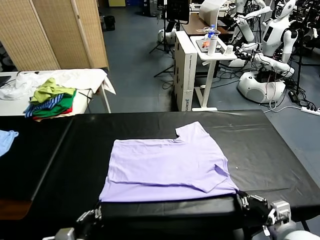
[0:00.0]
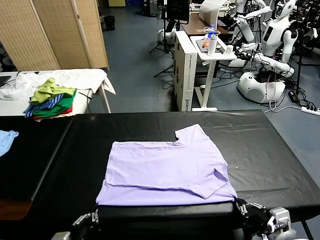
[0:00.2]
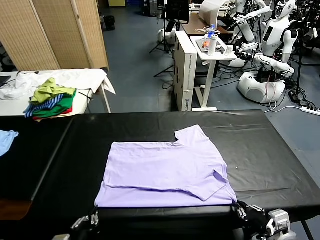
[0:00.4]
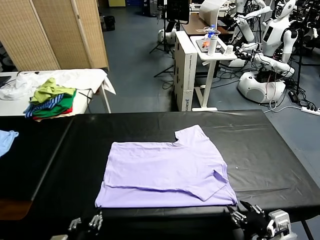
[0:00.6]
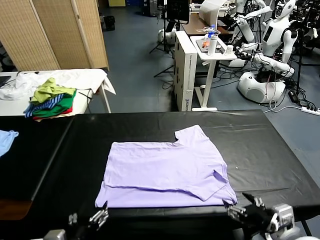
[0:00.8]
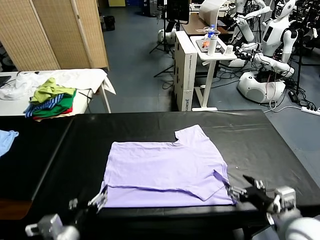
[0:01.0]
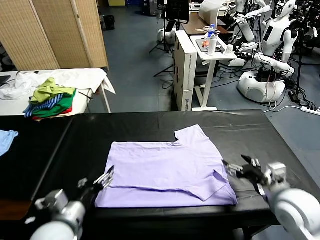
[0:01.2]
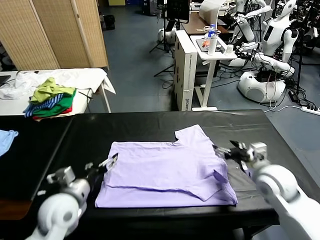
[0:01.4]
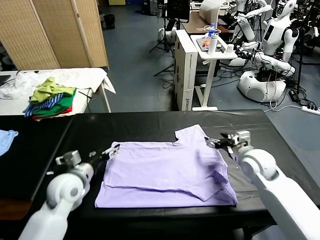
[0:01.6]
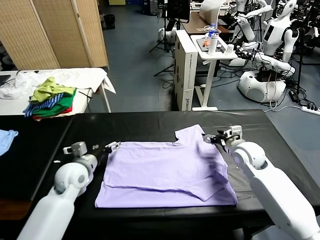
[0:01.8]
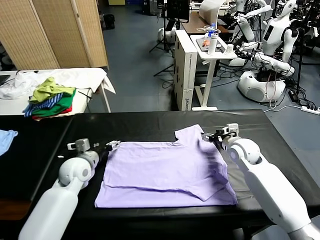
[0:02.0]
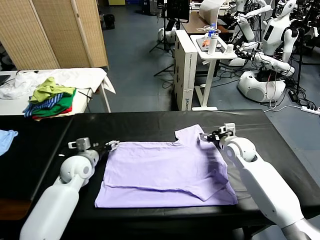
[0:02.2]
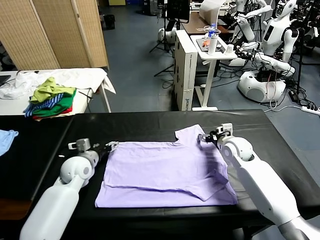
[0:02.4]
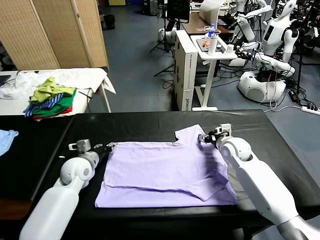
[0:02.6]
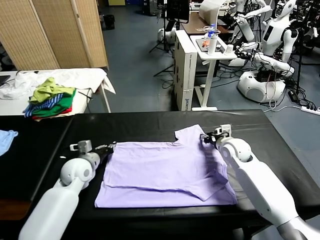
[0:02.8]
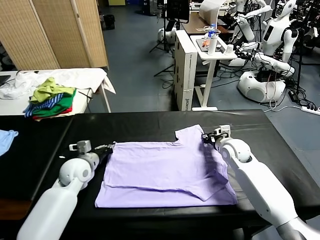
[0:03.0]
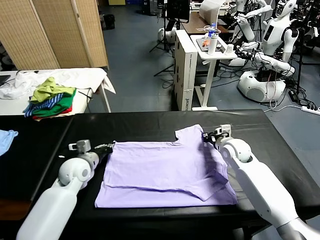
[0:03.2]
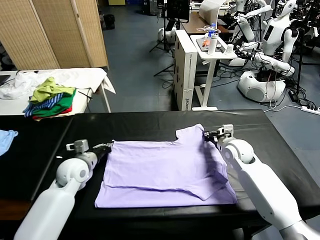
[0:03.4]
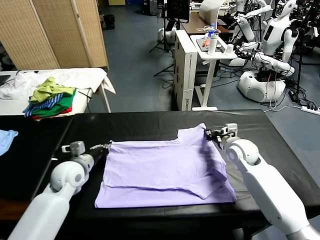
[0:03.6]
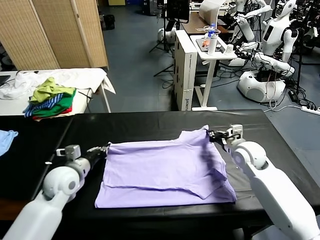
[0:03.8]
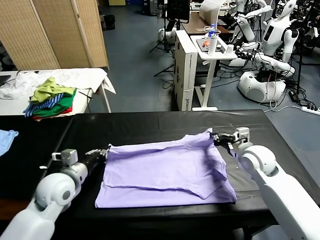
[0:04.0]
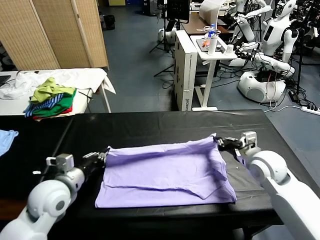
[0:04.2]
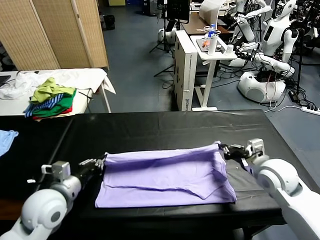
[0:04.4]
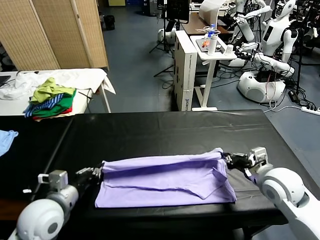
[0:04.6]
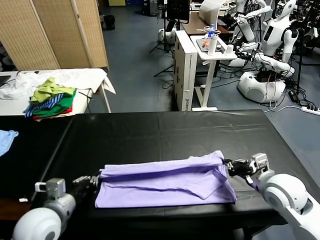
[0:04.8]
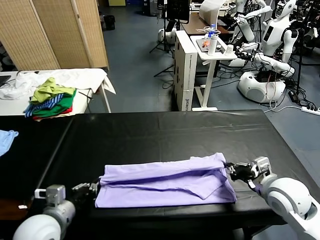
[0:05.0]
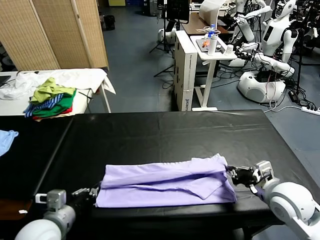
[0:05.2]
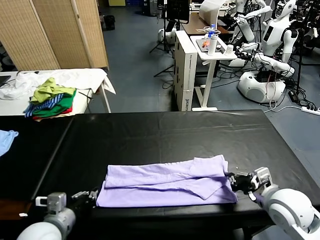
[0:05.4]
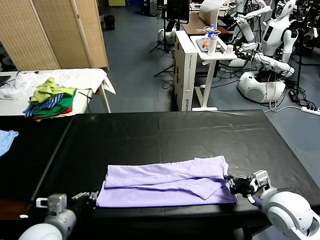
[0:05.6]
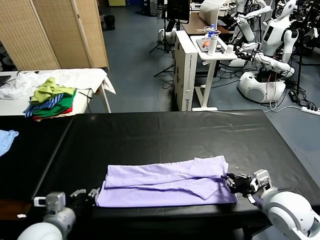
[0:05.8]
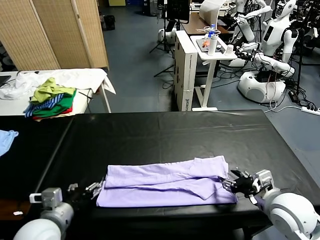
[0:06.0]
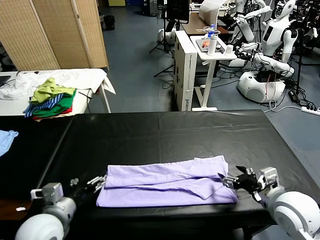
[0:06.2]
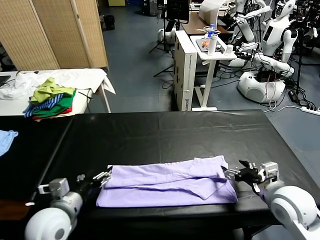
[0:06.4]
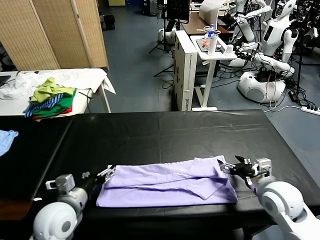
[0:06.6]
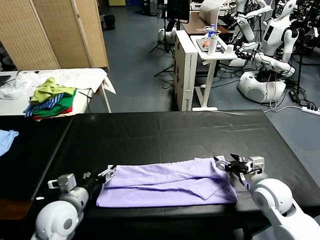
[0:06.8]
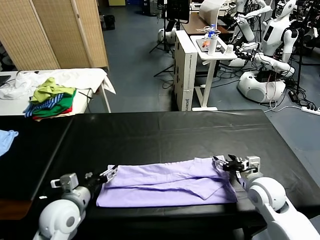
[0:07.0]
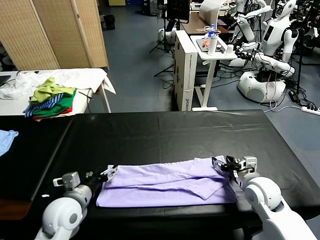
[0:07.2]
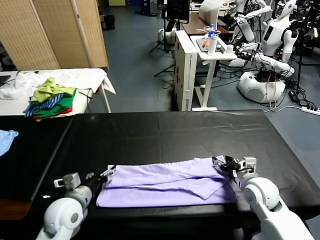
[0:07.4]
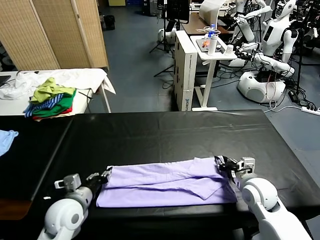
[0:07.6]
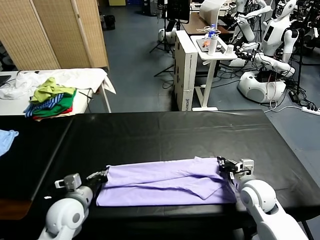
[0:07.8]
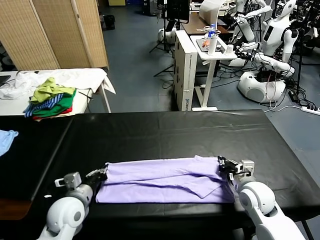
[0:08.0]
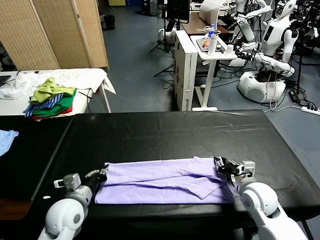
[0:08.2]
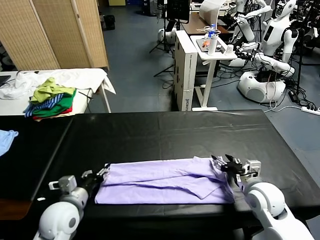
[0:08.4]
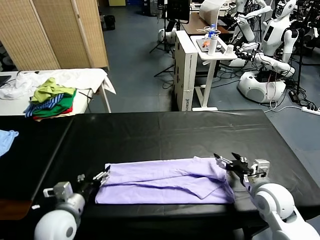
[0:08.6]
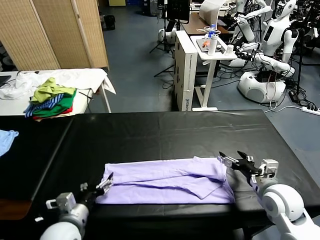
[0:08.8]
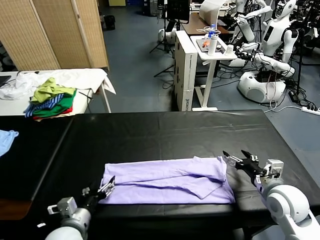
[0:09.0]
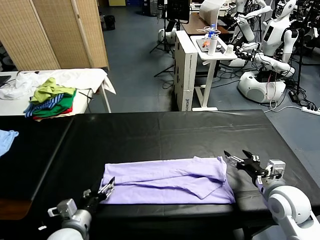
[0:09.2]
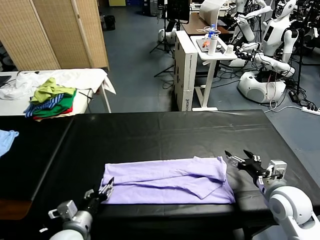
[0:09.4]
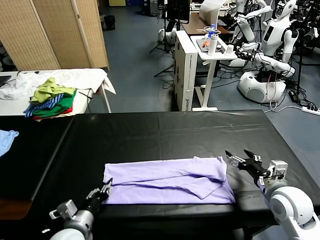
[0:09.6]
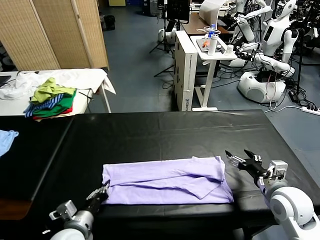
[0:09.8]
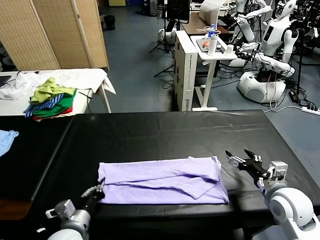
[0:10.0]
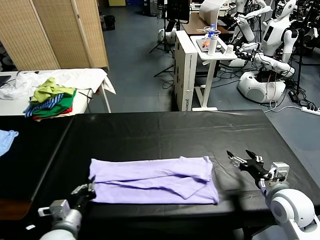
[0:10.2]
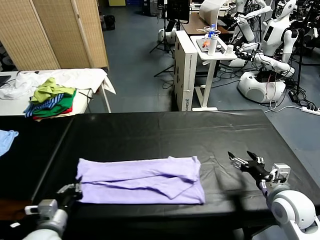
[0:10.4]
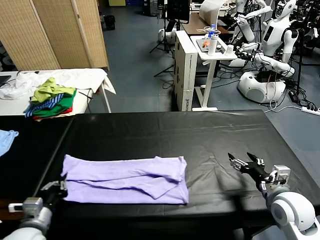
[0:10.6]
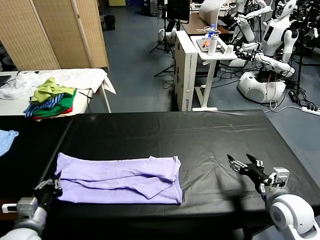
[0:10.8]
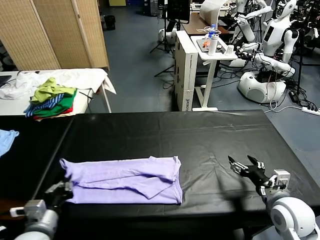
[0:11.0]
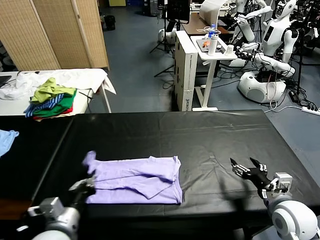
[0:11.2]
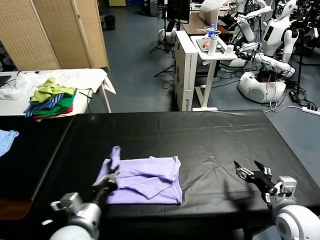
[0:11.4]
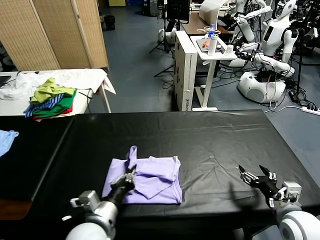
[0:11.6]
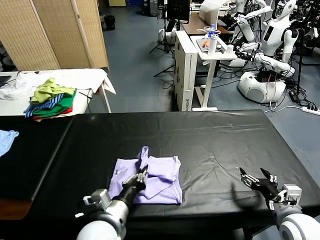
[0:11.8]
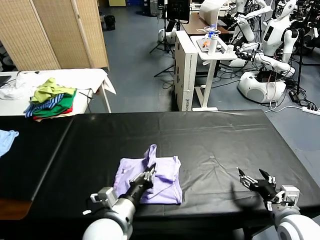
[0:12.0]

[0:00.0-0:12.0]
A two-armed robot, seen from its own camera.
Task of the whole recording: fold and organize the clothes.
Step, 0:00.8 to 0:03.0: use both grippers simultaneously to clamp the upper edge of the clothing fabric.
Step, 0:03.4 to 0:06.0: use both grippers to drag the upper edge of the fabric backward and fold it over the lower edge.
Step, 0:06.4 to 0:09.8: use the left gripper to clamp the left edge of the fabric.
0:00.0 to 0:01.6: Both grippers move forward, approximately 25 cm. The right gripper opens. The left gripper opens.
0:01.6 to 0:03.0: The left gripper moves roughly 5 cm, and closes up. Meanwhile the right gripper changes place by roughly 5 cm, and closes its fingers.
0:03.0 to 0:04.4: The two grippers go about 20 cm backward and upward.
0:04.4 to 0:06.0: The two grippers go roughly 5 cm backward. The right gripper opens. Meanwhile the left gripper opens.
0:06.0 to 0:07.6: The right gripper moves downward and forward, approximately 15 cm, and closes its fingers; the left gripper moves forward and downward, about 10 cm, and closes its fingers.
0:07.6 to 0:09.0: The right gripper goes roughly 5 cm upward, and opens up. The left gripper is displaced backward by approximately 5 cm, and opens up.
0:09.0 to 0:10.4: The left gripper shifts approximately 5 cm to the left, and closes.
0:10.4 to 0:12.0: The right gripper travels backward by approximately 5 cm, while the left gripper moves to the right, roughly 20 cm.

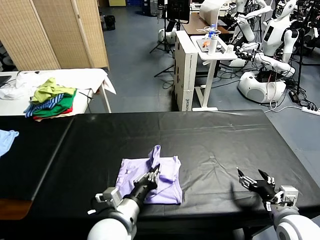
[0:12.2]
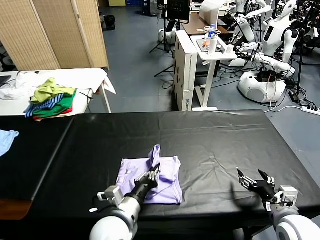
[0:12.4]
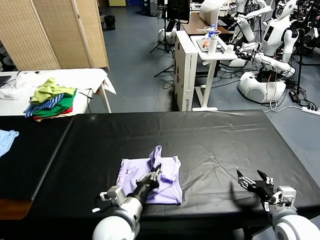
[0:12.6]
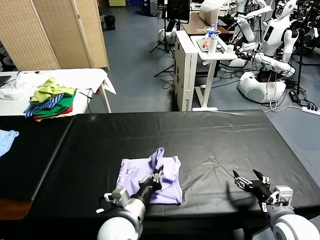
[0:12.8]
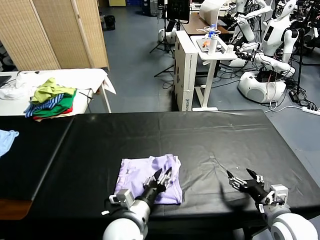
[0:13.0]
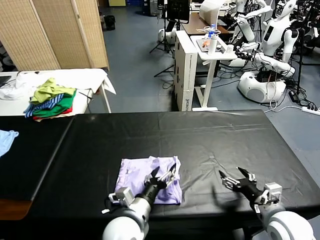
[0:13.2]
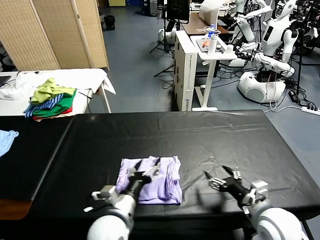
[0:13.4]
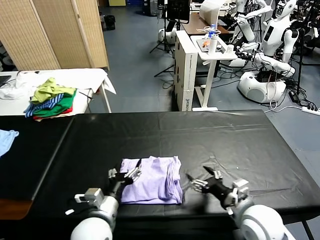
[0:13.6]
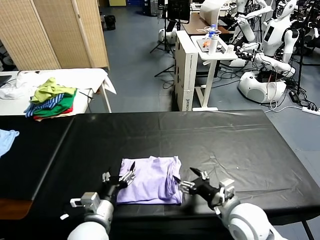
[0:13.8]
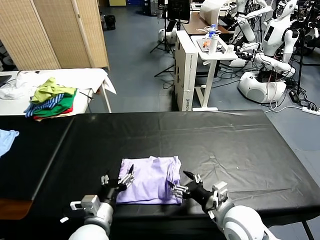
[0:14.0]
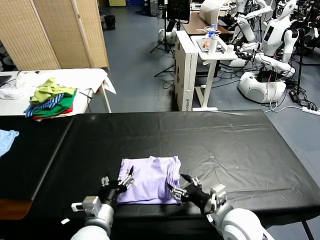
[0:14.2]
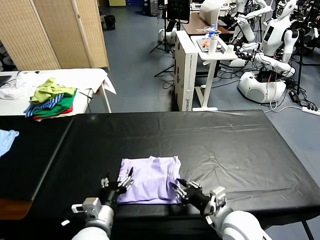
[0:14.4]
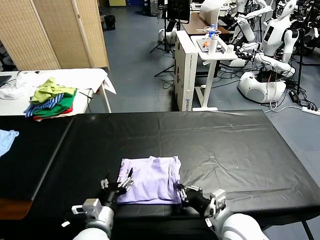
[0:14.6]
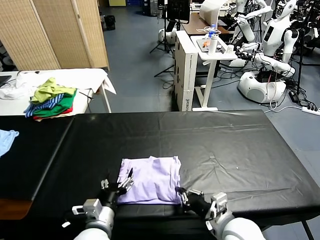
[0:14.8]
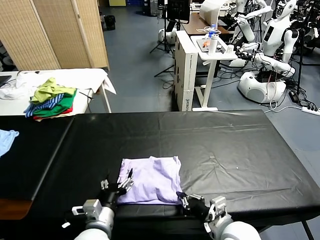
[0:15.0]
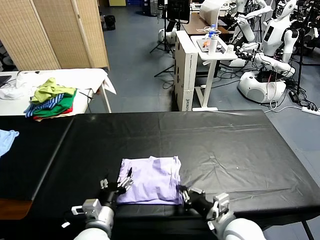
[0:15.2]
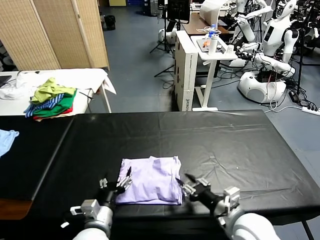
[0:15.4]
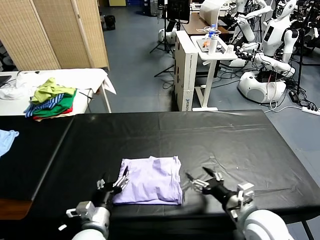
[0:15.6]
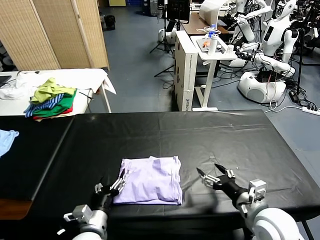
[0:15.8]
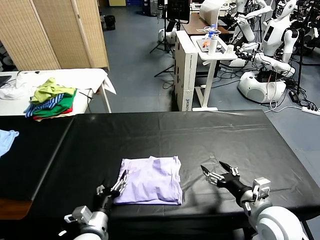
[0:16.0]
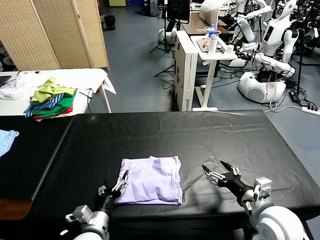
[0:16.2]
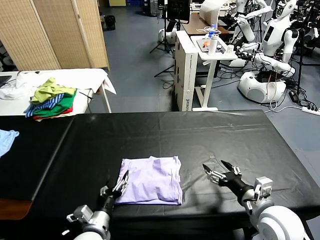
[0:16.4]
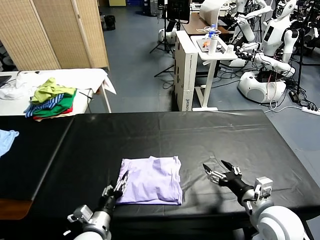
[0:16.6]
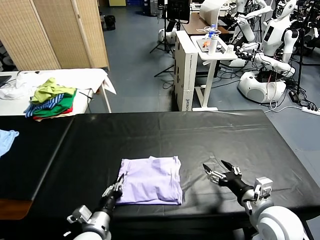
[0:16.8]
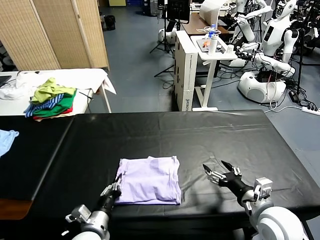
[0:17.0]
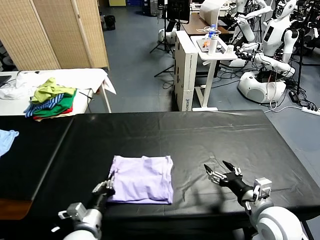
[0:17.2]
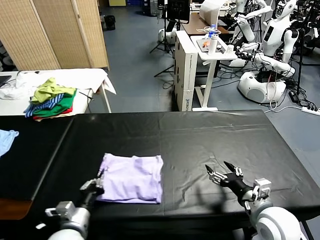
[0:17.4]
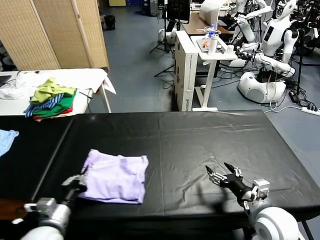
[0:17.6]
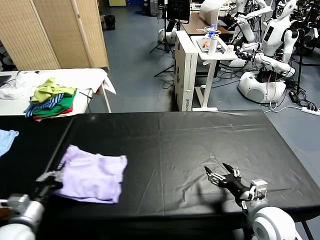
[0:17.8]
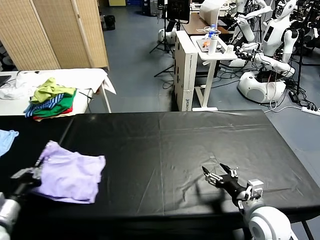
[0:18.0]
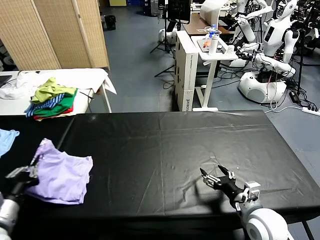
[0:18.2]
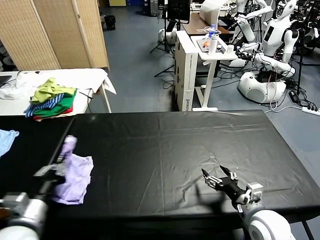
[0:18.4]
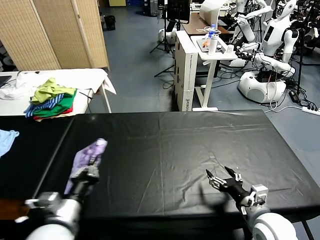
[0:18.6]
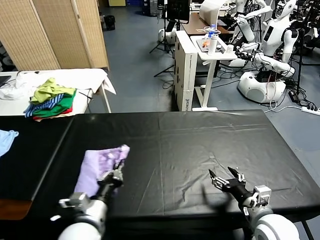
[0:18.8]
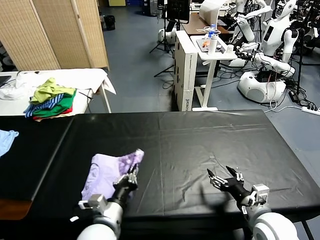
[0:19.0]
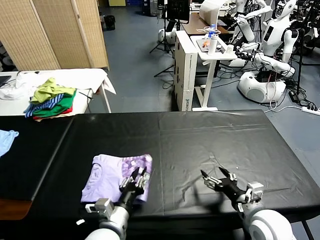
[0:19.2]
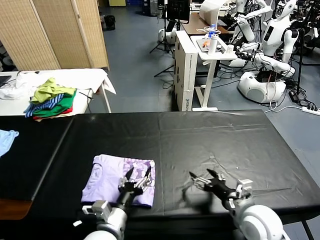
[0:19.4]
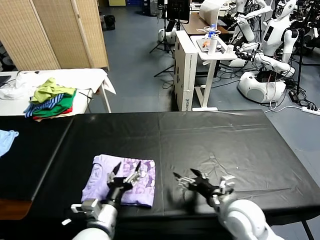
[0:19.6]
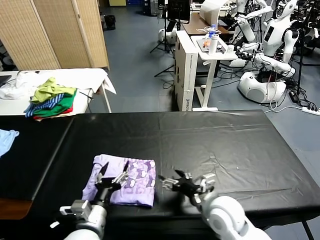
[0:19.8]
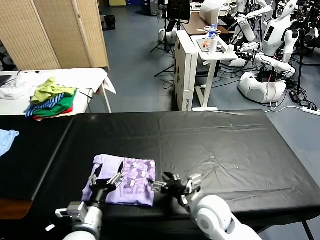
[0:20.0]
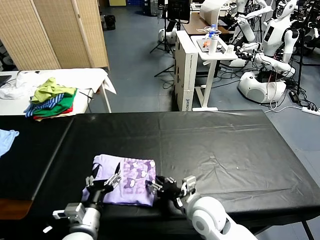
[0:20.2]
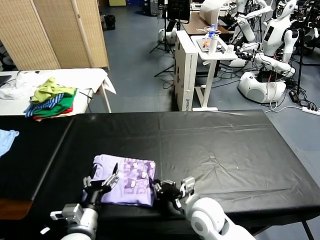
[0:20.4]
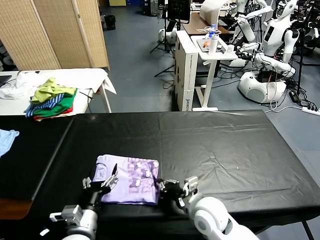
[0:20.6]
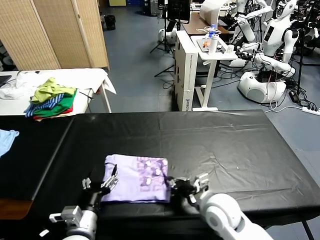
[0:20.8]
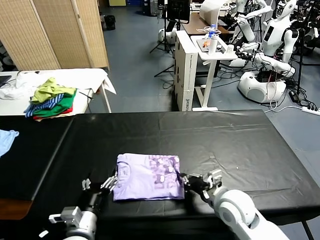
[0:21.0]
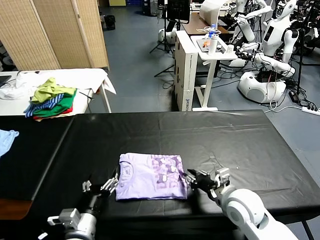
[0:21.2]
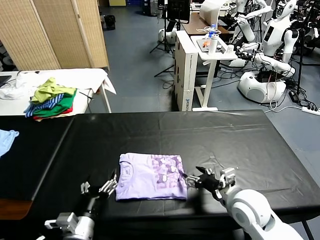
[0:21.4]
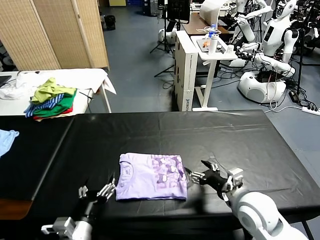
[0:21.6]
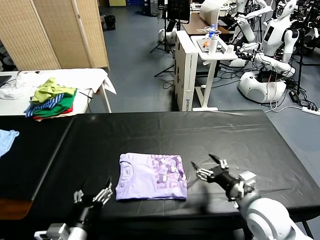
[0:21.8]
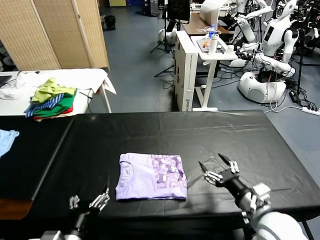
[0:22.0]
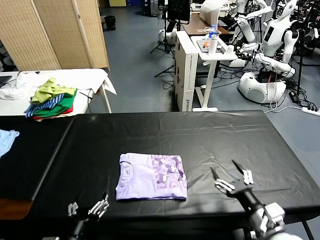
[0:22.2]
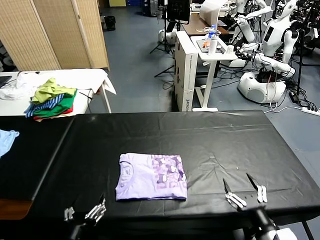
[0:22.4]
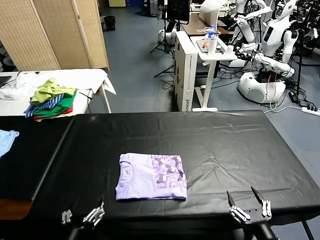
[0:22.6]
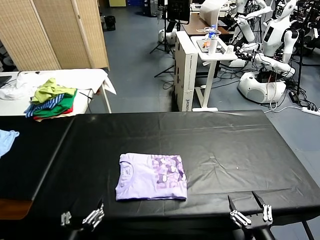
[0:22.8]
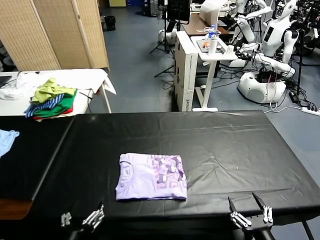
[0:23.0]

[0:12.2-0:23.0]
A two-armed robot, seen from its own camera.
Task of the whole recording: fold and organize the clothes.
Step, 0:13.6 to 0:19.4: Flip the folded clothes over with left gripper.
Step, 0:19.8 to 0:21.4: Drag the clothes to the center of the table.
0:12.2 to 0:13.8: The right gripper travels to the left by about 15 cm, while the left gripper heads to the left, covering about 5 cm, and opens its fingers.
0:13.8 to 0:15.2: The right gripper closes up.
0:15.2 to 0:16.8: The right gripper travels to the right by roughly 10 cm, and opens up; the left gripper moves approximately 5 cm, and closes up.
0:16.8 to 0:18.4: The left gripper heads upward and to the left, covering some 20 cm.
0:18.4 to 0:20.0: The right gripper is displaced to the left by roughly 15 cm. The left gripper goes approximately 15 cm to the right and downward, and opens.
0:20.0 to 0:21.4: The right gripper is displaced to the right by approximately 10 cm, and closes, then reopens.
0:21.4 to 0:23.0: The right gripper shifts roughly 20 cm backward. The left gripper goes some 10 cm backward and upward.
